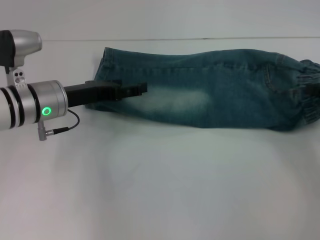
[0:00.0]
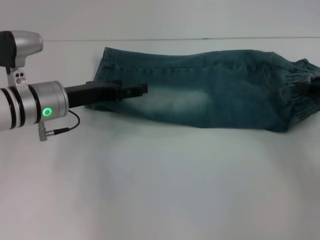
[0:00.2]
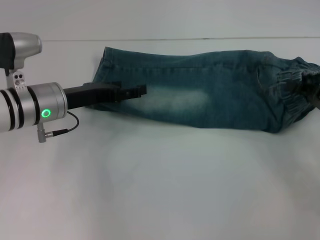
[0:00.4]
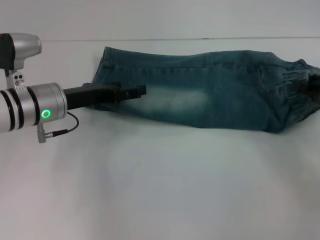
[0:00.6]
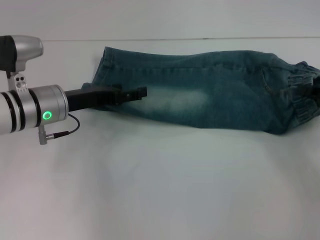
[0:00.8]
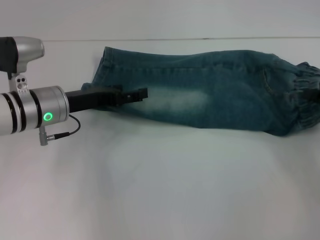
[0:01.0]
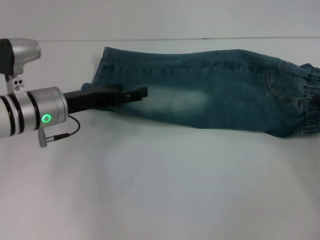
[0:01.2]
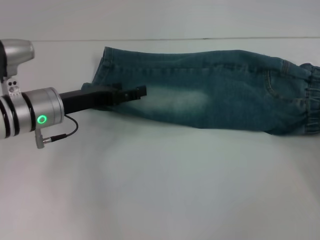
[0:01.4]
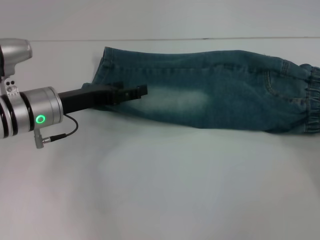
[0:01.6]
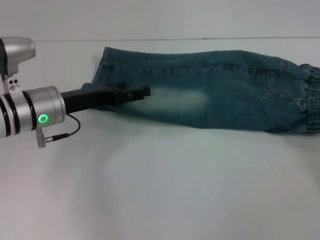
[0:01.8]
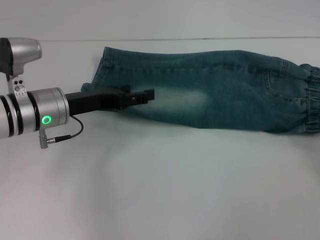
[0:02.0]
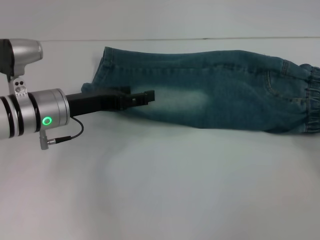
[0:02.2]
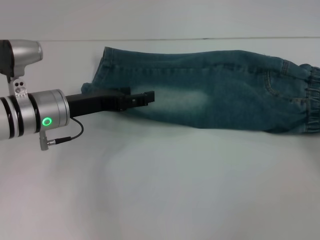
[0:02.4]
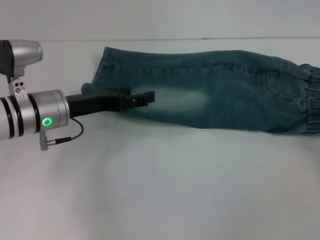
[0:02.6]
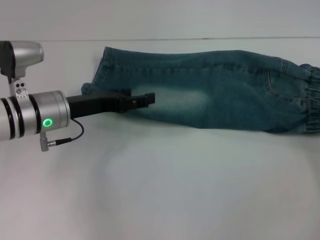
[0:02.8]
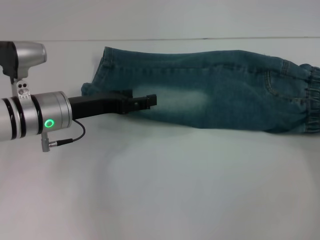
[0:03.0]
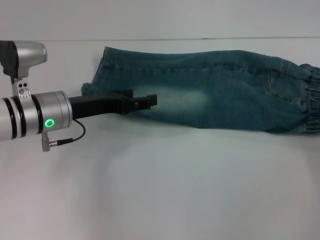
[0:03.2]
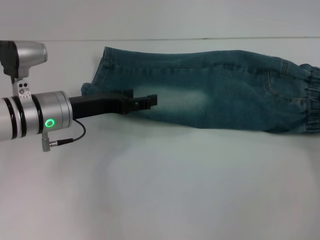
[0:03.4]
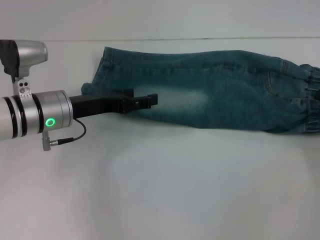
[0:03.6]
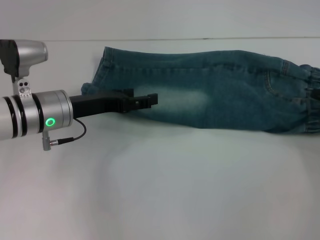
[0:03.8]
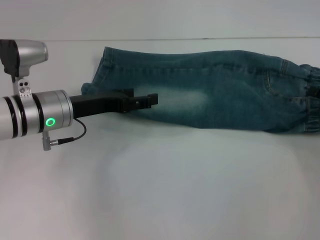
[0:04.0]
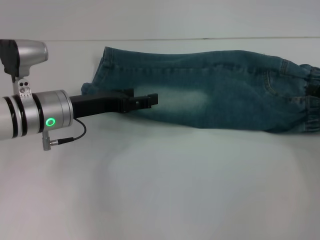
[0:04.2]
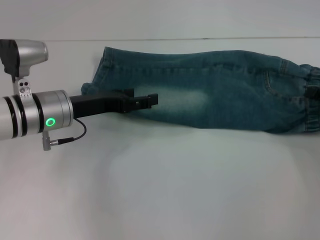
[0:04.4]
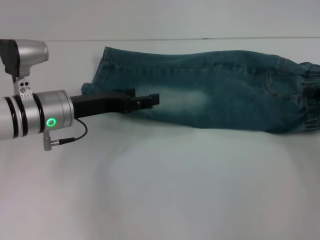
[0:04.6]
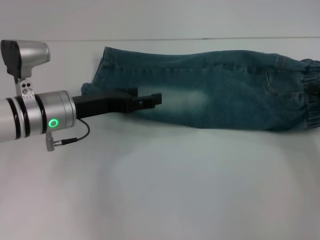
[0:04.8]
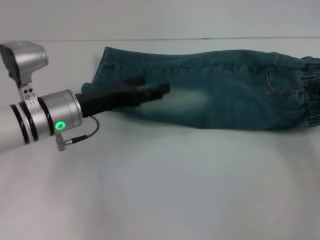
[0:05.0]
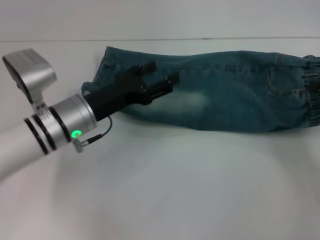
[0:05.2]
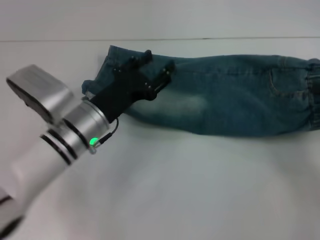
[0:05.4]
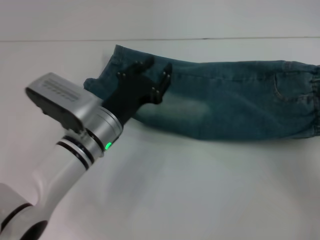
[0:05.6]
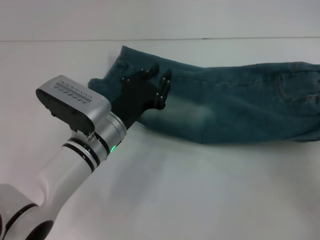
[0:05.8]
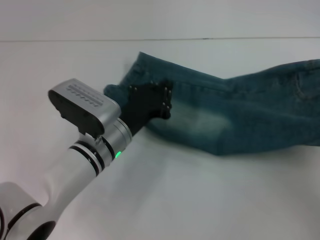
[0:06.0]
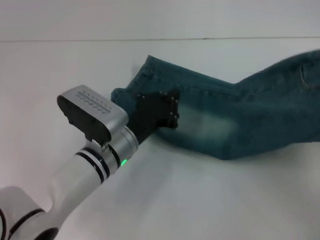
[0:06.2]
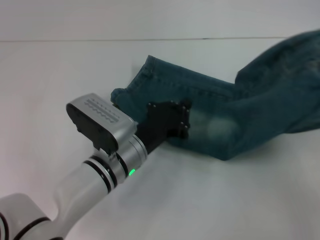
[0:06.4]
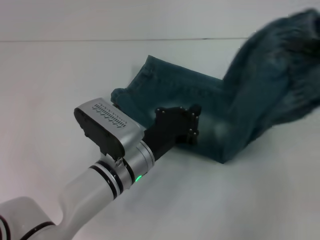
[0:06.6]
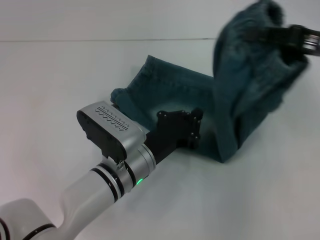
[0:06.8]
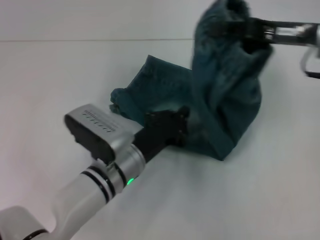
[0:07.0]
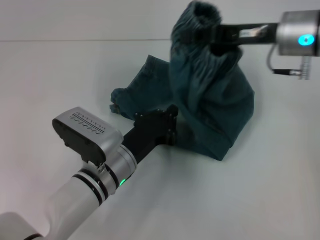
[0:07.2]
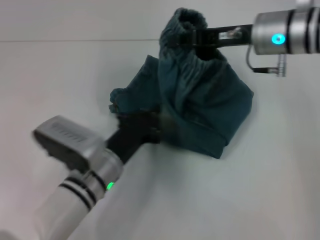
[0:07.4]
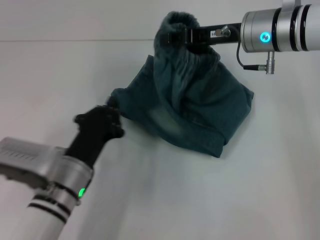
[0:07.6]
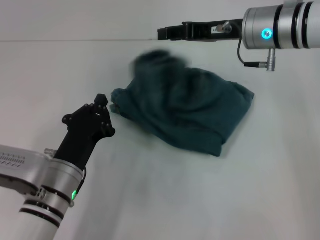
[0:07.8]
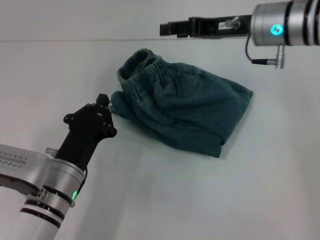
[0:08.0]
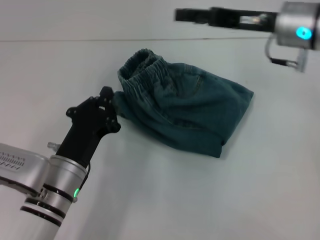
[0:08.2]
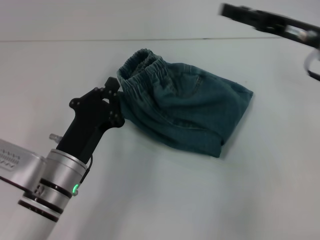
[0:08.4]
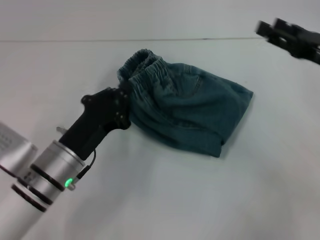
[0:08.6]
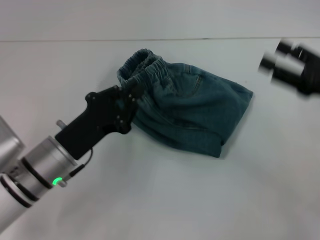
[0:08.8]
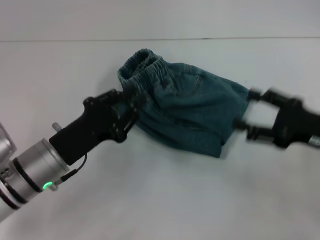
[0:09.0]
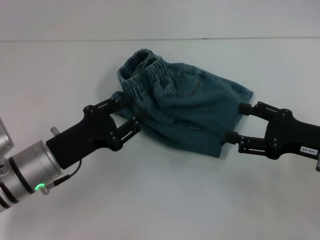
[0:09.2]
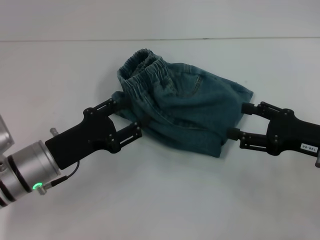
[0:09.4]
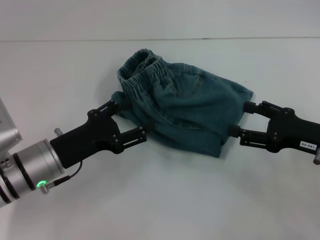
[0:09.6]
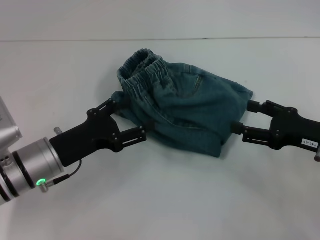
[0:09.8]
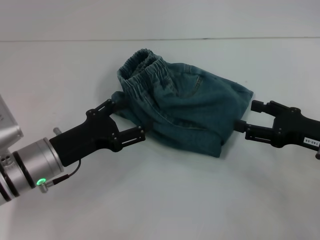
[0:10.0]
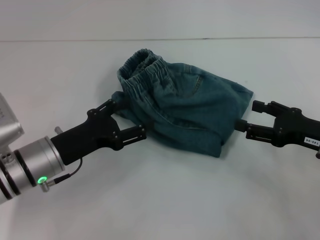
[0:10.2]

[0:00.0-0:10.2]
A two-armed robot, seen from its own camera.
Step, 0:00.0 to 0:02.2: Grab the waistband with your right hand.
Step, 0:02.4 to 0:07.0: Press the middle of the pants with your left hand.
Step, 0:07.2 to 0:08.4: Fold to the left with your right hand.
0:00.0 to 0:01.4: The grippers make only small movements.
0:01.4 to 0:03.0: The right gripper opens its fingers.
0:03.0 to 0:04.4: The grippers make only small movements.
0:04.4 to 0:05.8: The left gripper heads to the right, covering about 10 cm, and closes up; the right gripper travels upward and backward by about 10 cm, and closes its fingers.
0:05.8 to 0:07.2: The left gripper closes, while the right gripper goes about 25 cm to the left and forward.
0:07.2 to 0:08.8: The right gripper heads backward, to the right and downward, covering roughly 15 cm, and opens; the left gripper heads to the left, covering some 10 cm.
0:08.8 to 0:10.2: The left gripper opens up.

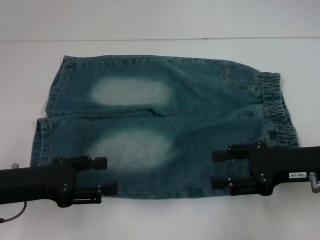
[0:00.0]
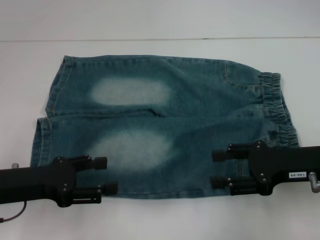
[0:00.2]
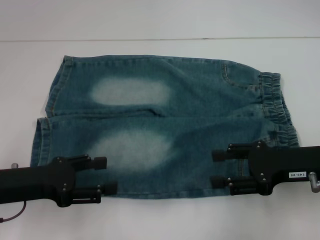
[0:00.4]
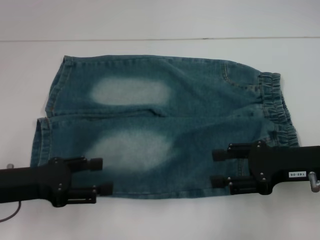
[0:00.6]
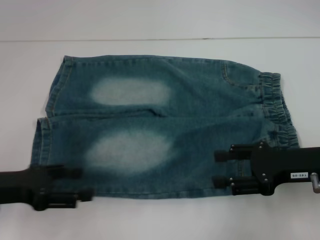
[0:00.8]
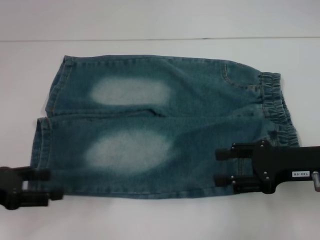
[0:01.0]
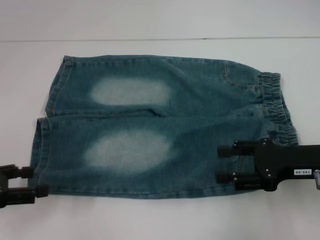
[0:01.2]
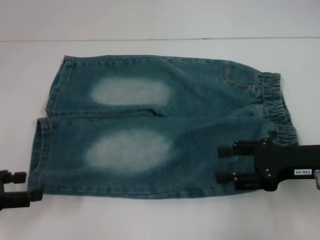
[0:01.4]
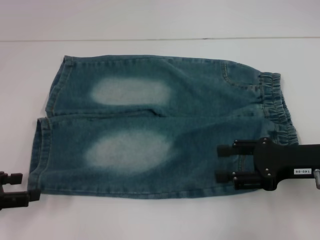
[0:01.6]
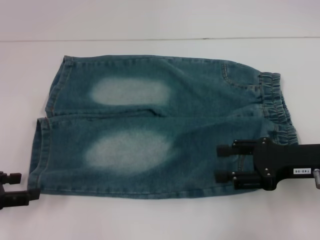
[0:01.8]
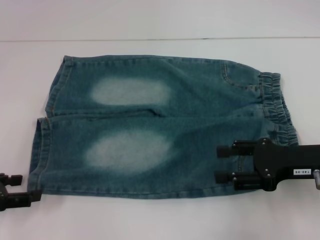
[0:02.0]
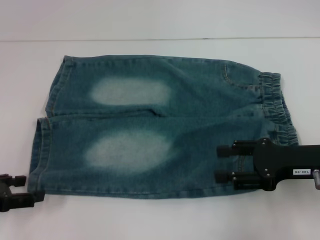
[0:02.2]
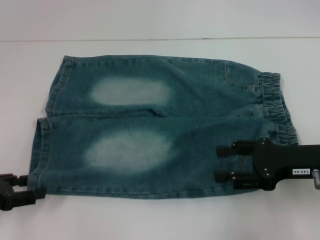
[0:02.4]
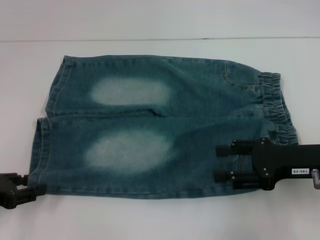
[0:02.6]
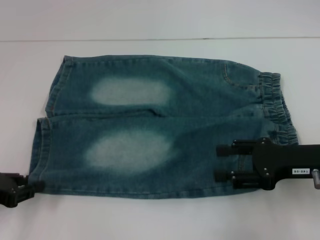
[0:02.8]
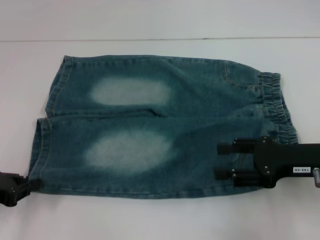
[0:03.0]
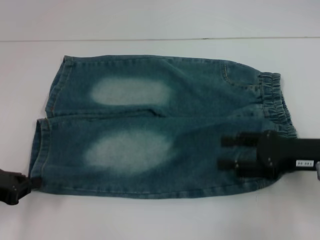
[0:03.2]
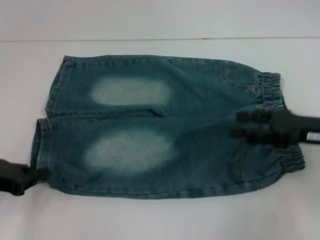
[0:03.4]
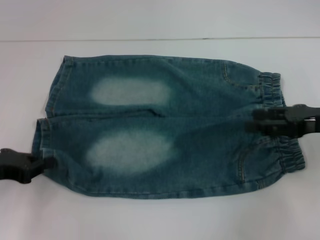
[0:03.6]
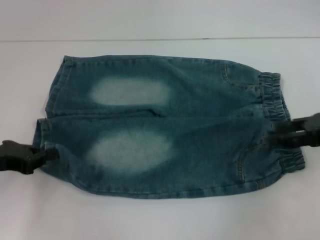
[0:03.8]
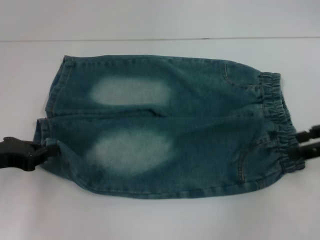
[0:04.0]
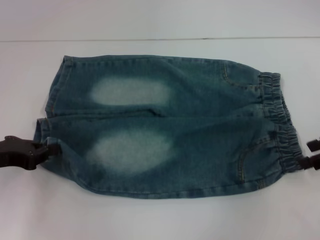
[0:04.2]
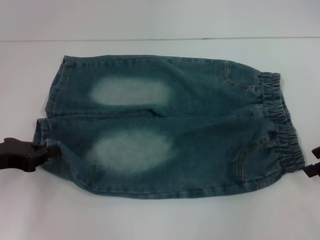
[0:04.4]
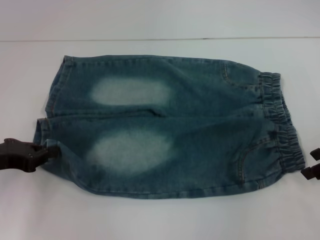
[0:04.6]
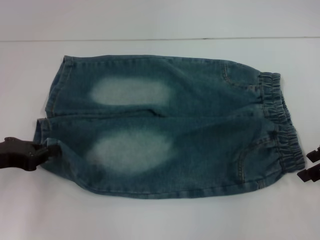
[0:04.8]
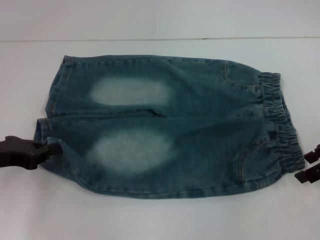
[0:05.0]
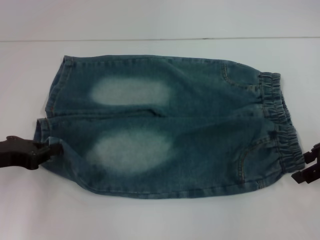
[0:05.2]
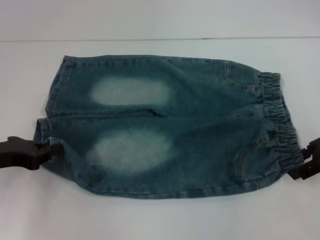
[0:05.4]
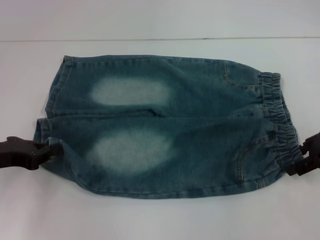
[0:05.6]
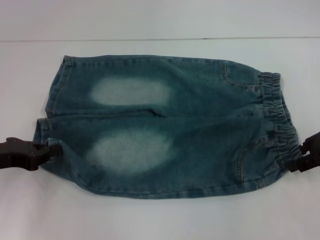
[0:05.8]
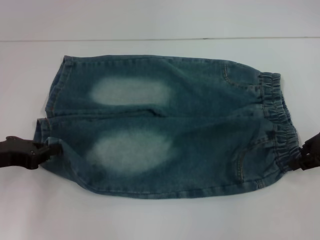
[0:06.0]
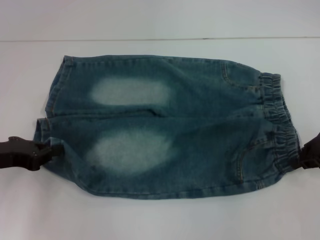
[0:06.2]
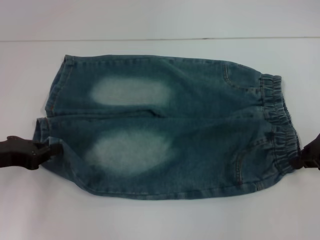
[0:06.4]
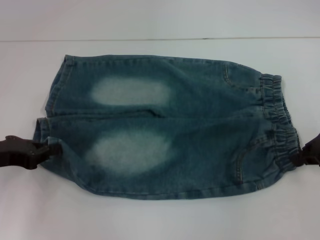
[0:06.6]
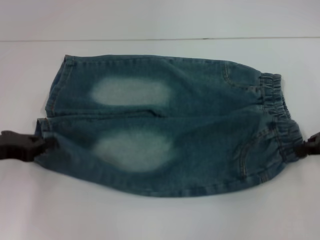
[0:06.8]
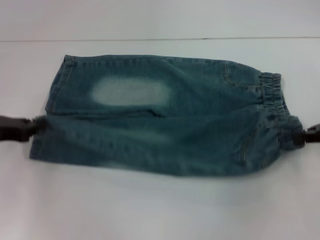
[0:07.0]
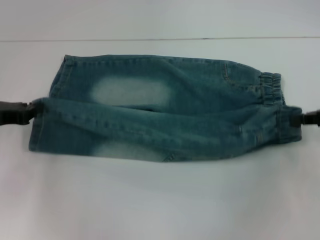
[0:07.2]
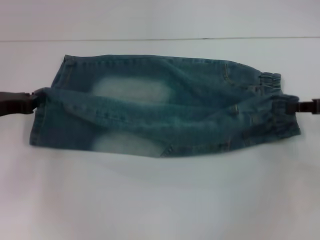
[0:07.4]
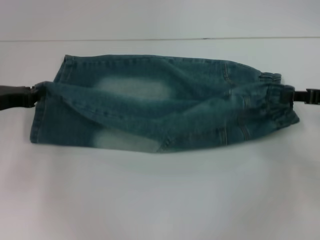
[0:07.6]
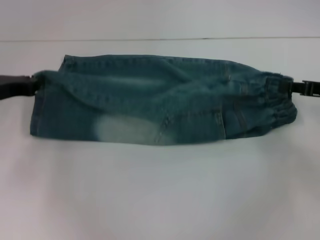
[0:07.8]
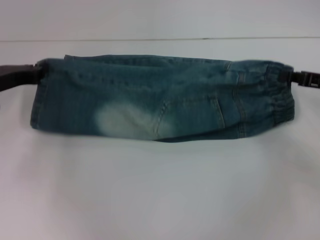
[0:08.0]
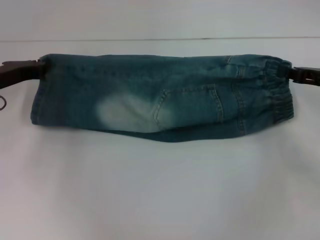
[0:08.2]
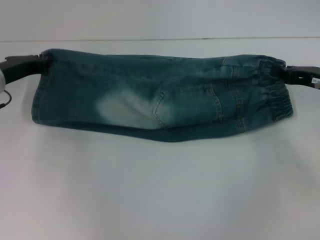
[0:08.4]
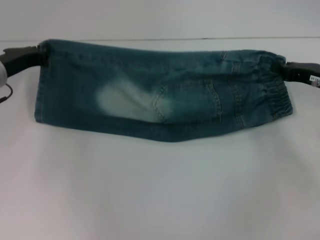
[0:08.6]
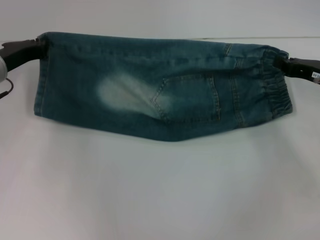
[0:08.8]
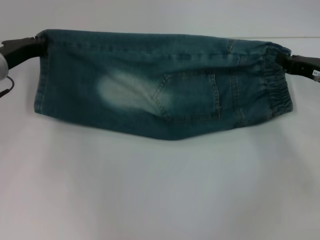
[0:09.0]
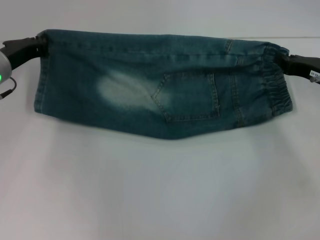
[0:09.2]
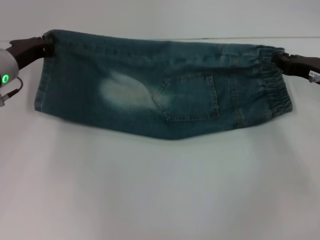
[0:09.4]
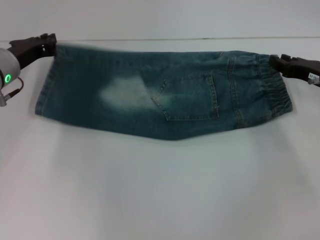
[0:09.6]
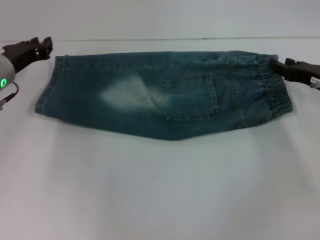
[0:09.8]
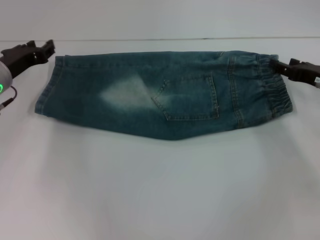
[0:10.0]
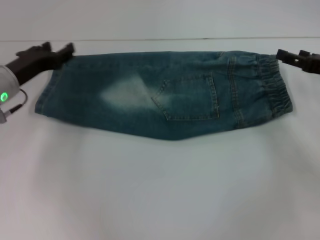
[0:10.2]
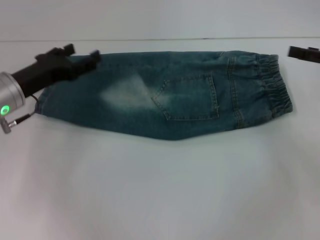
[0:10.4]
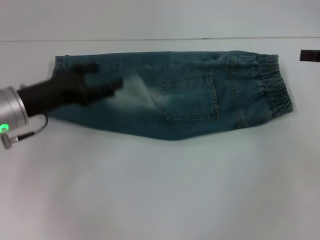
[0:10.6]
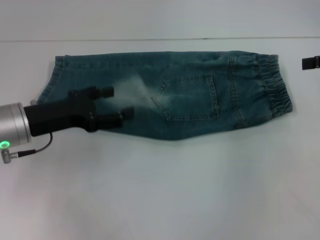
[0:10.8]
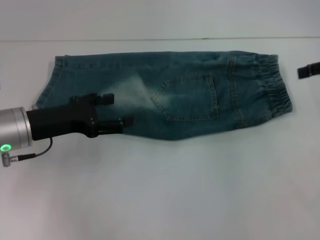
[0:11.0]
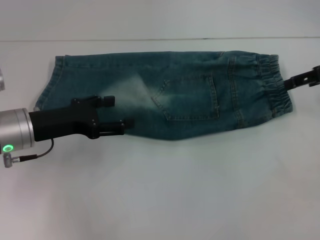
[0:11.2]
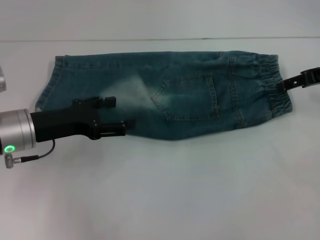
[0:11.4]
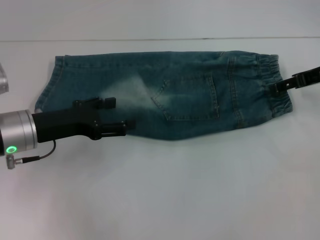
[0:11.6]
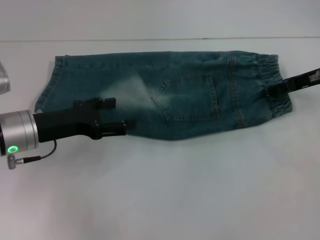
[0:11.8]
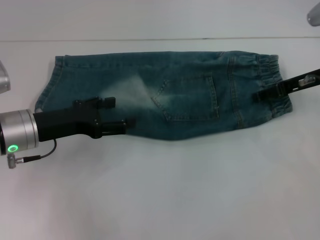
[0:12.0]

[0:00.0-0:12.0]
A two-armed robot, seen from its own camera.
Step, 0:00.0 to 0:03.0: Grab the lower left pant leg with your left hand.
Step, 0:03.2 to 0:06.0: Hold the lower right waistband with your right hand.
Step, 0:06.2 to 0:09.4: Fold upward with your right hand.
0:00.0 to 0:01.6: The left gripper is displaced to the left by about 10 cm.
0:01.6 to 0:03.0: The left gripper closes up.
0:03.0 to 0:04.4: The right gripper shifts about 10 cm to the right and upward.
0:04.4 to 0:06.0: The grippers stay close to where they were, moving slightly.
0:06.0 to 0:07.6: The left gripper moves forward, some 5 cm. Meanwhile the right gripper closes up.
0:07.6 to 0:09.0: The right gripper changes place by about 5 cm. Meanwhile the left gripper goes roughly 5 cm forward.
0:09.0 to 0:10.4: The left gripper opens up, while the right gripper travels upward and to the right by approximately 10 cm, and opens up.
0:10.4 to 0:12.0: The right gripper moves to the left and forward, some 10 cm.
